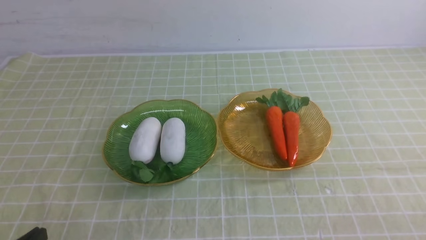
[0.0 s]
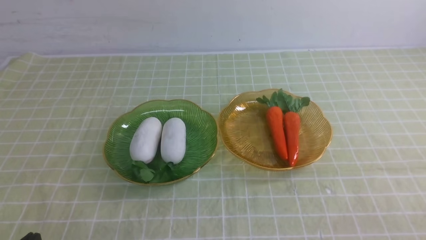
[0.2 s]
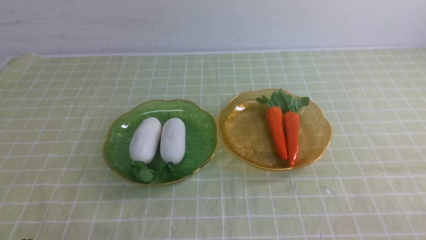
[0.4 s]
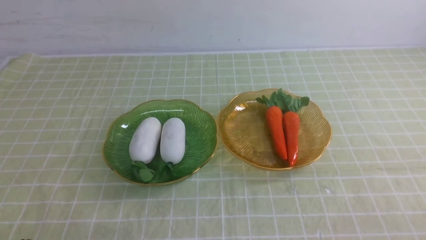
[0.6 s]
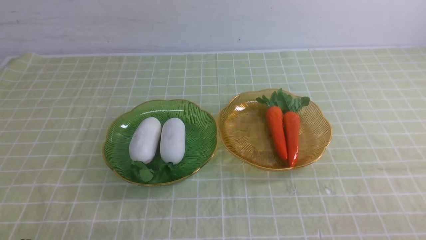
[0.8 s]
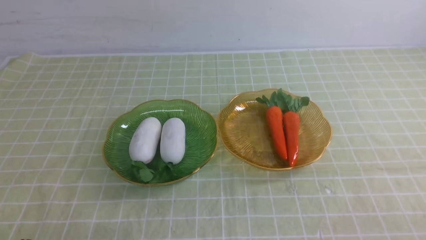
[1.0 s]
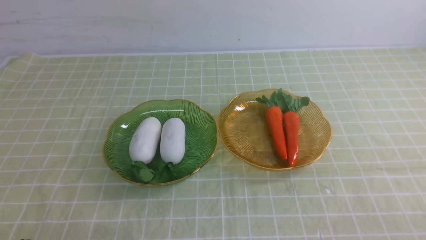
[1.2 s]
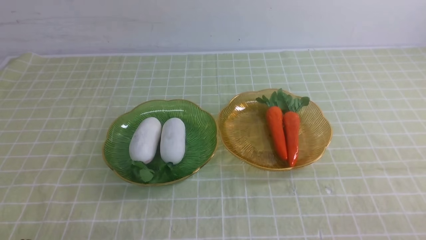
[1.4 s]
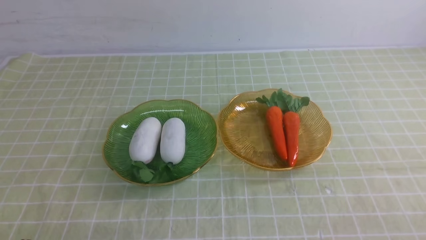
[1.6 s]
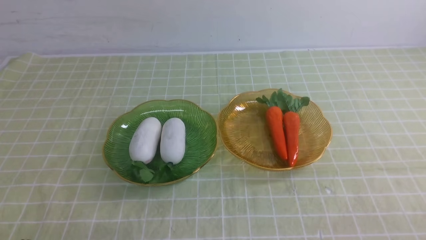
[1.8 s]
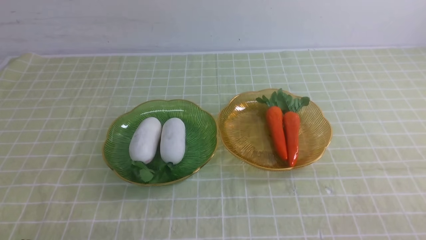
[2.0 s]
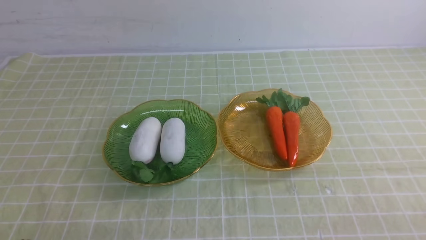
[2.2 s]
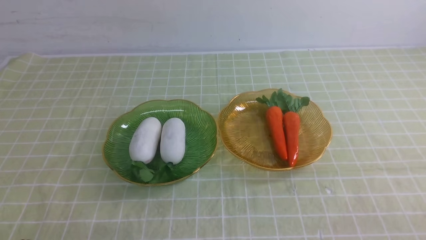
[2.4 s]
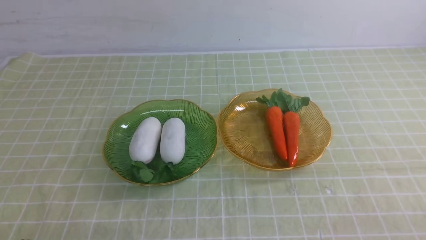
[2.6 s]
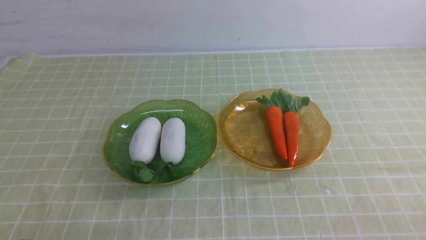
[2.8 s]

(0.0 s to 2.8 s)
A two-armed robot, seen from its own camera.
1.4 s - 2.8 s: Both grippers stay about where they are.

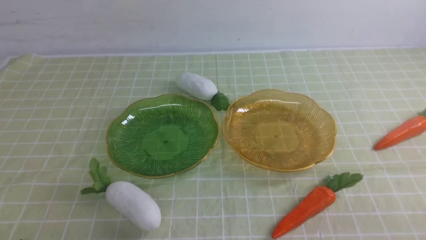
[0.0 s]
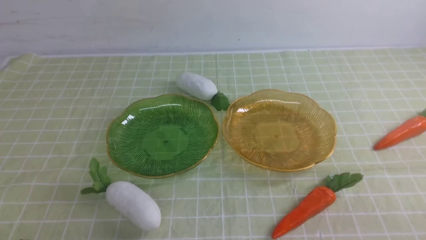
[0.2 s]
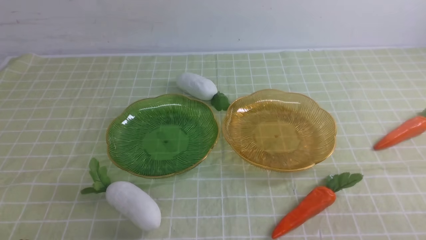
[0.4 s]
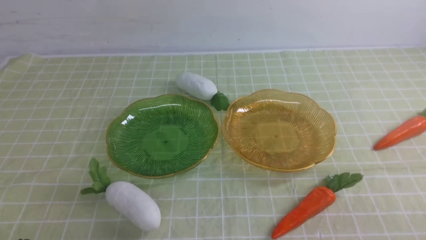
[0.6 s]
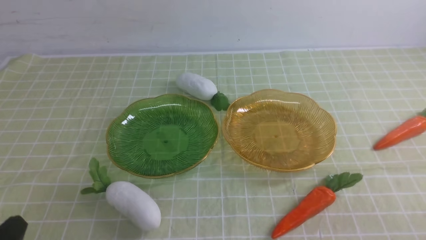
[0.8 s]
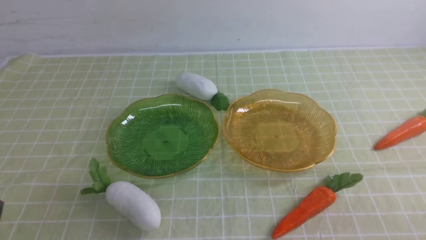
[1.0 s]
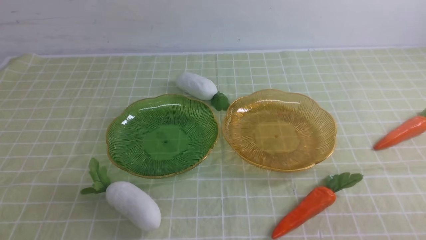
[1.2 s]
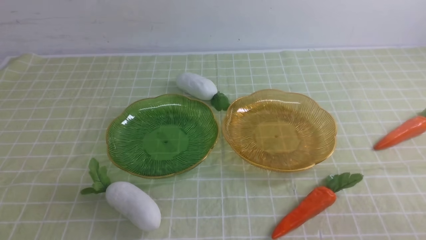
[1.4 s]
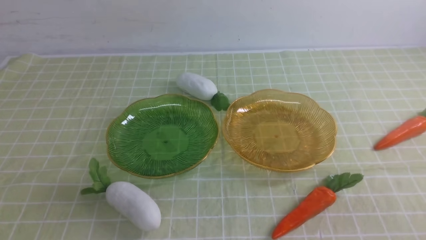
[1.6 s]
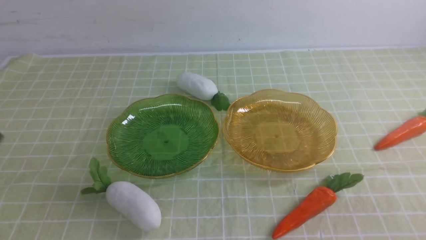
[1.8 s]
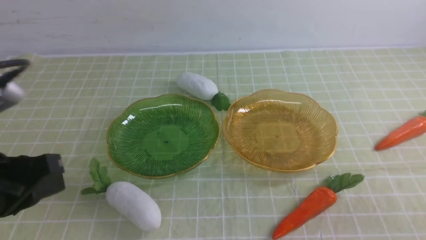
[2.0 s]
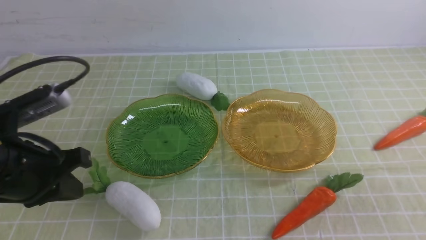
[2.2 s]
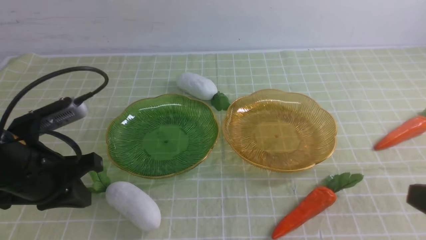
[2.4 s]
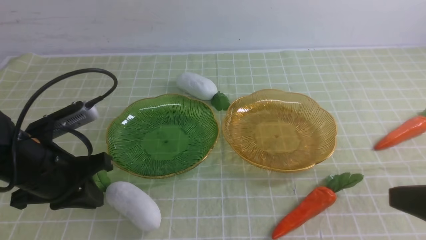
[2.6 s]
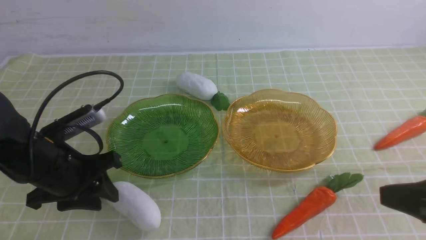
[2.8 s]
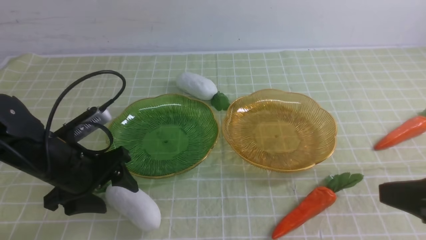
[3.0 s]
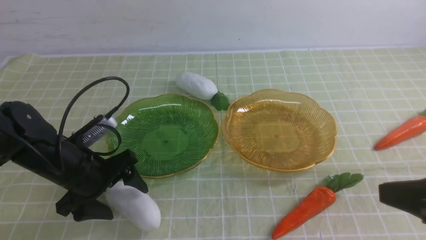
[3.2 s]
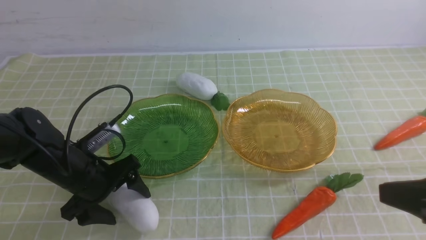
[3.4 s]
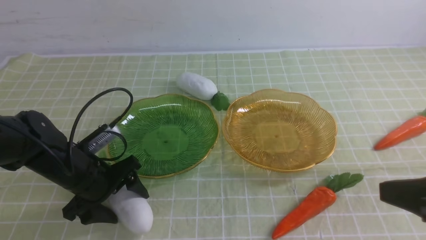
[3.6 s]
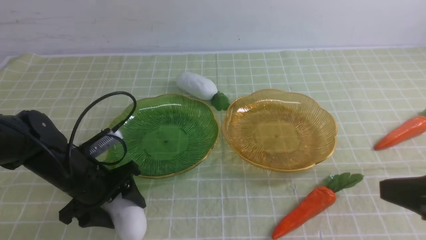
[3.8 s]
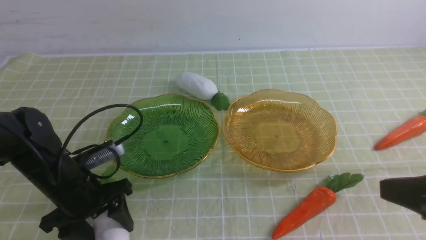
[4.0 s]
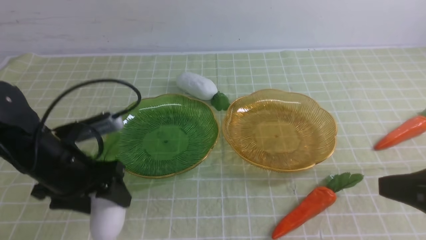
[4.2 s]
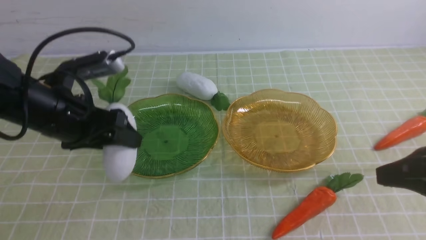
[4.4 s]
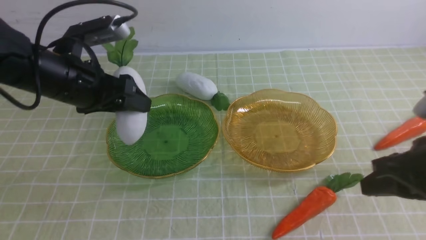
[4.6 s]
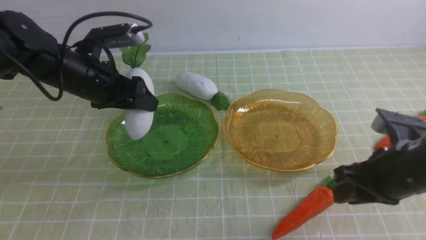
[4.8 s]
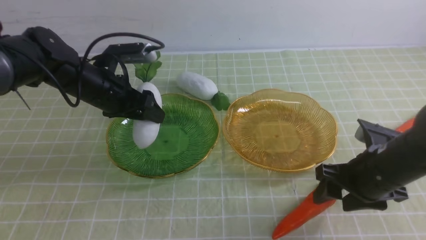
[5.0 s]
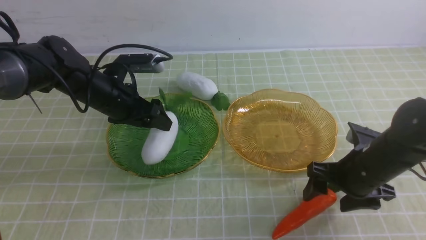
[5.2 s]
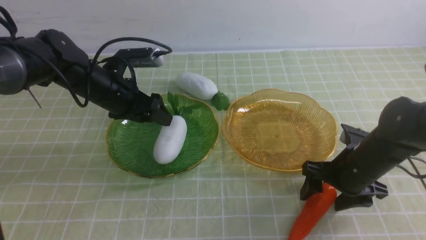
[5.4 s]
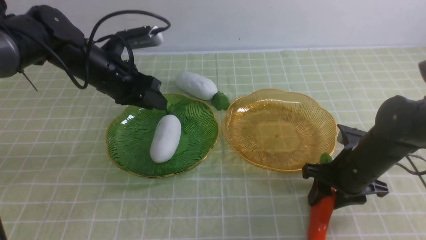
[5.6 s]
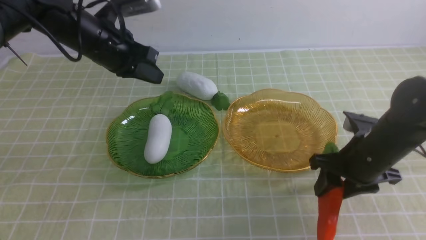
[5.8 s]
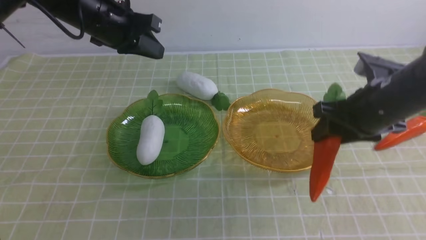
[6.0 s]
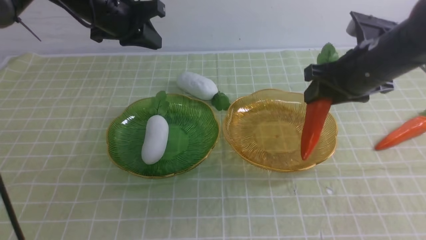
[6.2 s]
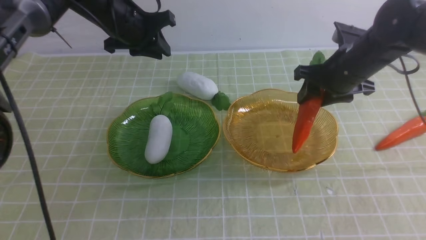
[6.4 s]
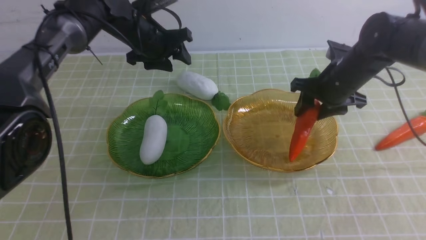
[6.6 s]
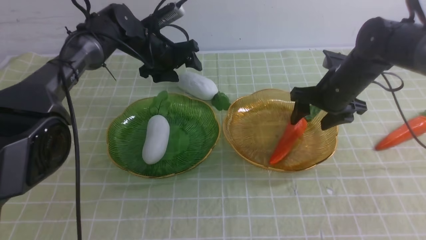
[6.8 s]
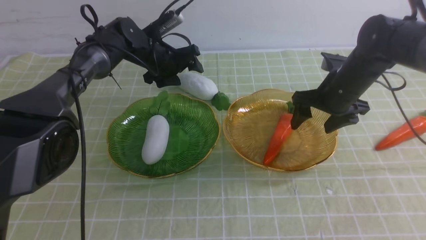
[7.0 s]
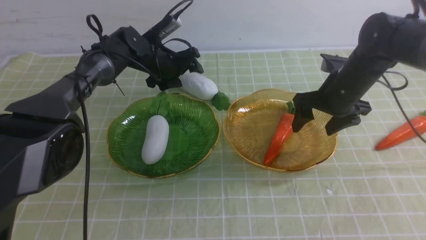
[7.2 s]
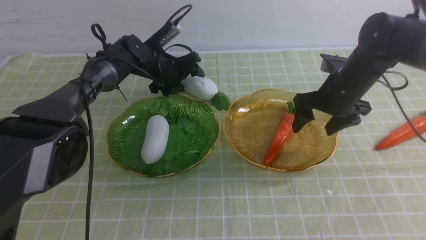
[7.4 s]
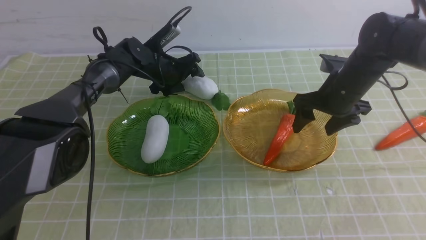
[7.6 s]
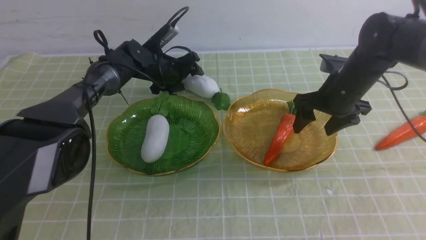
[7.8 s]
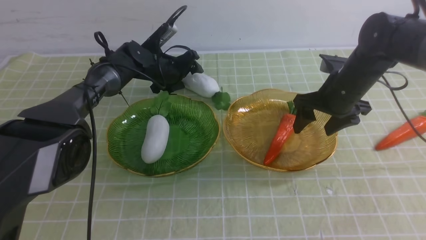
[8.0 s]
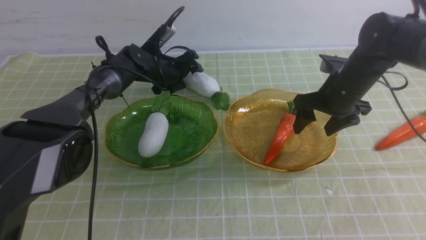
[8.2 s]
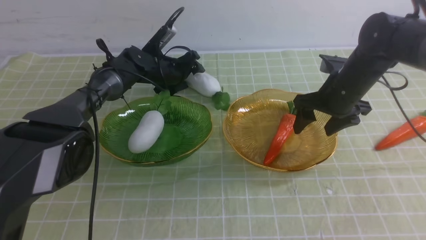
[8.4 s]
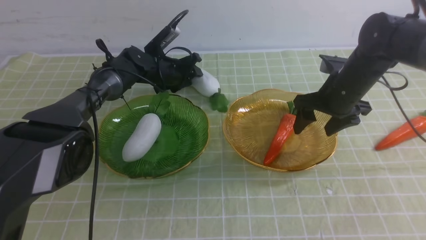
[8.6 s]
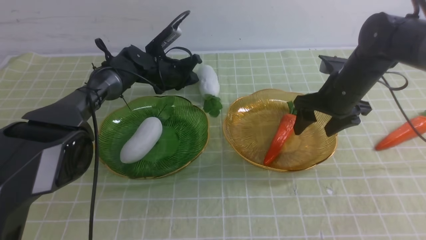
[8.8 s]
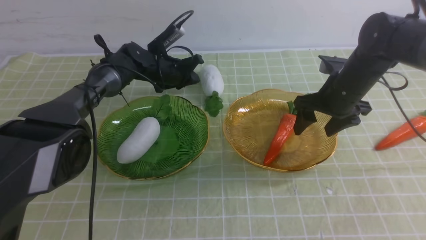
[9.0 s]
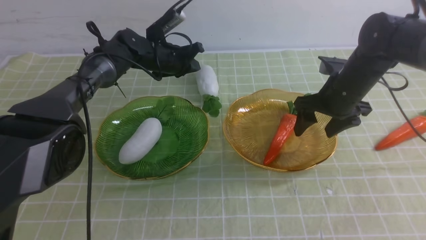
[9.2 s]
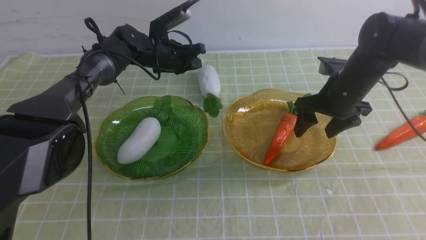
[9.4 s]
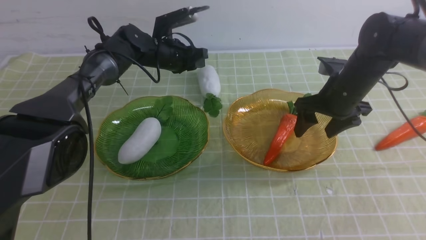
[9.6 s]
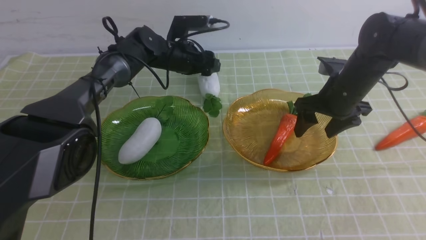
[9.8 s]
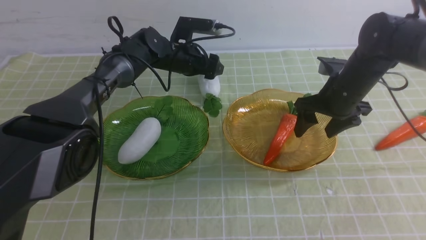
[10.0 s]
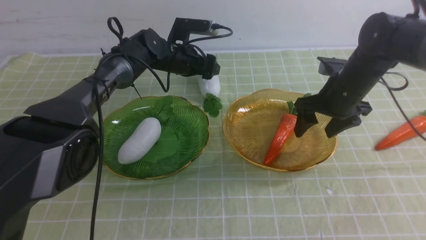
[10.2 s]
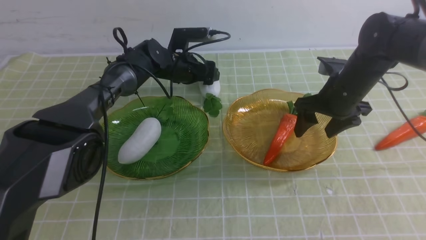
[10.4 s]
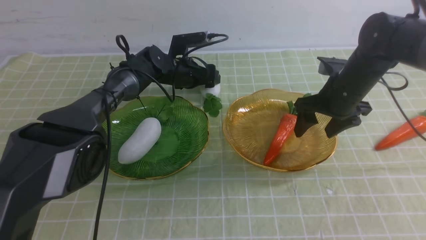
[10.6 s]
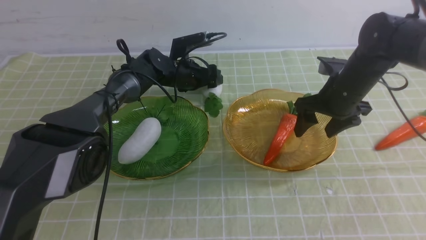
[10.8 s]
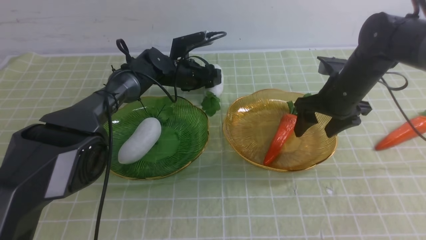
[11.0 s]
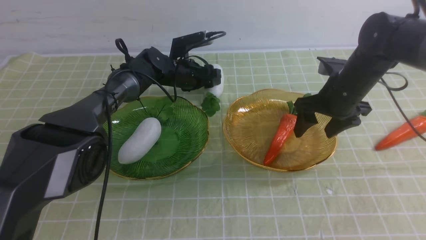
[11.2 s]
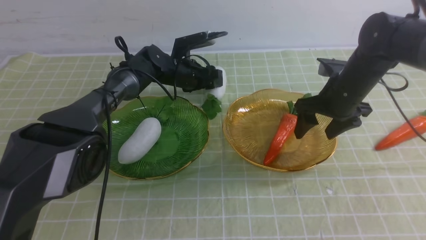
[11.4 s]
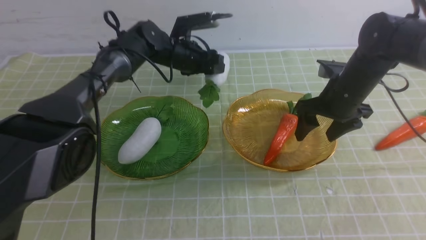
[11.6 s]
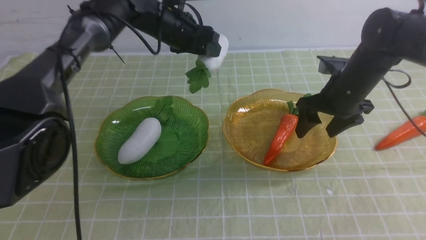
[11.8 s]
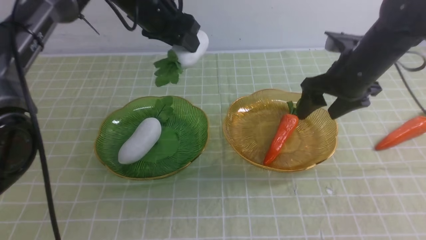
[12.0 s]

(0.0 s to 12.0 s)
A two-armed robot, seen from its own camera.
Step, 0.0 s - 5.2 s: use the left arm to grab a radish and put it into the left plate.
Step, 5.4 s - 6.6 s: use the right arm to grab a carrot and put it into the right plate.
1.6 s - 3.0 s: The left gripper travels forward by approximately 20 cm, and opens; the right gripper travels upward and forward by roughly 10 cm.
4.4 s - 6.0 s: The right gripper goes some 15 cm forward and downward, and opens up. Meanwhile the left gripper heads forward and upward, covering some 15 cm, and closes its fingers.
6.0 s - 7.6 s: The right gripper is displaced forward by about 10 cm, and opens up. Meanwhile the left gripper travels downward and forward by about 20 cm, and opens up.
7.6 s - 9.0 s: The left gripper closes.
9.0 s - 10.4 s: The left gripper opens up.
10.4 s - 12.0 s: The left gripper travels upward and backward by about 15 cm, and closes its fingers. The right gripper changes place by roughly 5 cm.

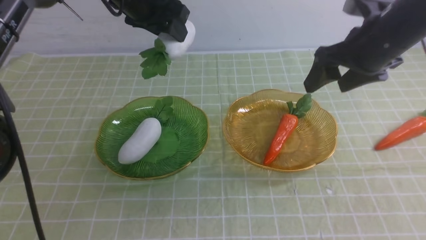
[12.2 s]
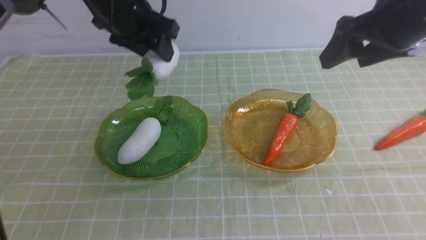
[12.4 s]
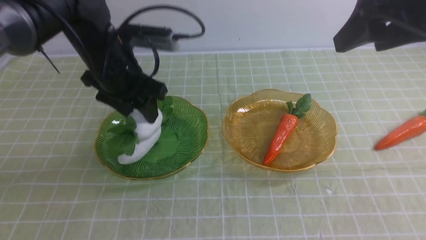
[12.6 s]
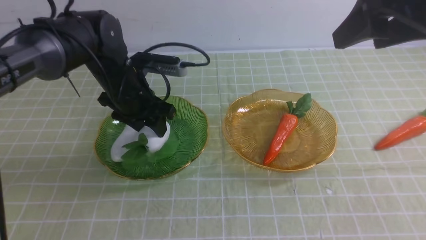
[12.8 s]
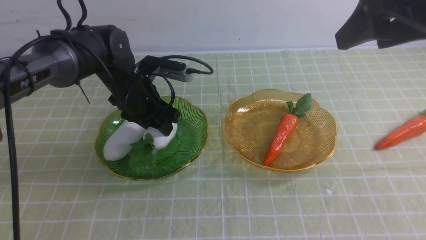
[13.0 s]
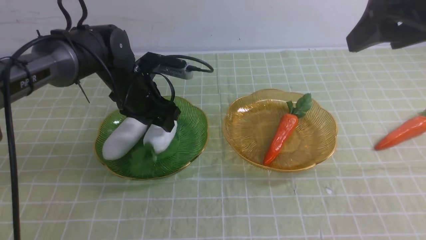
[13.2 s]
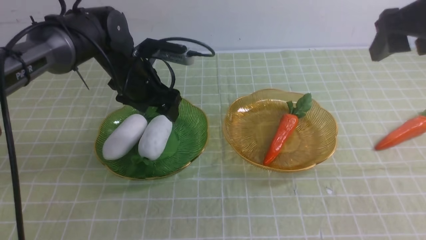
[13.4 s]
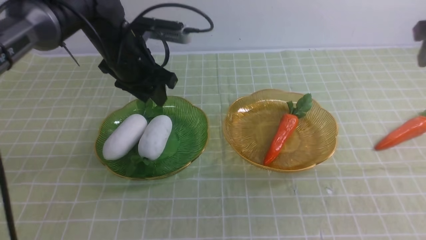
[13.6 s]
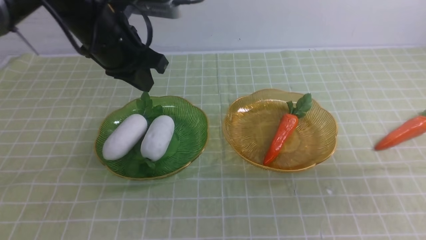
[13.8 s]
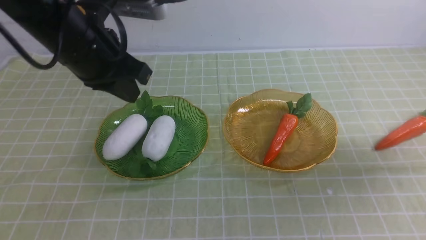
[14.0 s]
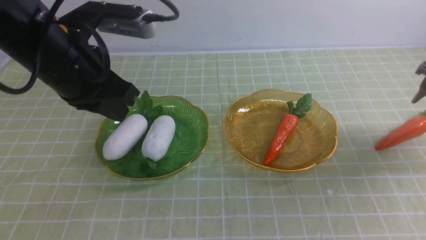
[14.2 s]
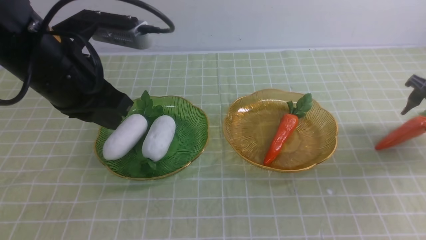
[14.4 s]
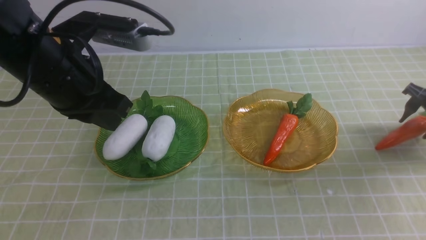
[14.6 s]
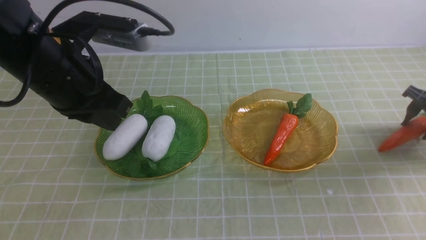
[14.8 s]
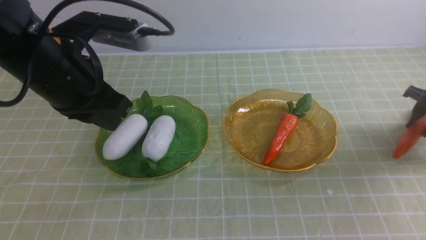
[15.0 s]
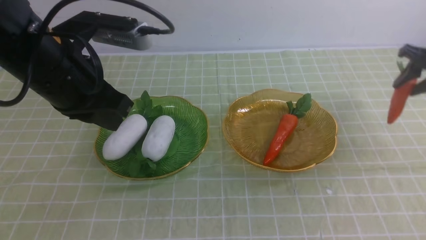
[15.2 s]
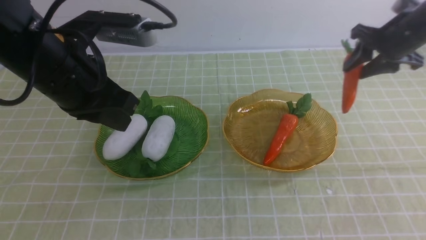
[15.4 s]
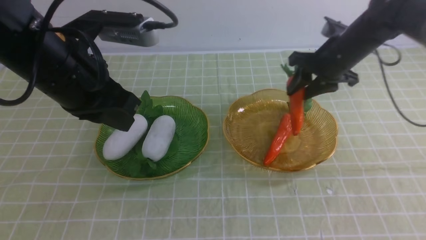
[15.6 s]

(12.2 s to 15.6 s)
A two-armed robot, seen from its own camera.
12.2 s - 13.8 s: The left gripper heads backward, covering some 5 cm, goes downward and returns, approximately 15 cm each way, and closes. The right gripper heads to the right, covering roughly 15 cm.
13.8 s - 15.6 s: The right gripper is displaced to the left, forward and downward by some 15 cm. The left gripper heads backward, covering roughly 10 cm.
